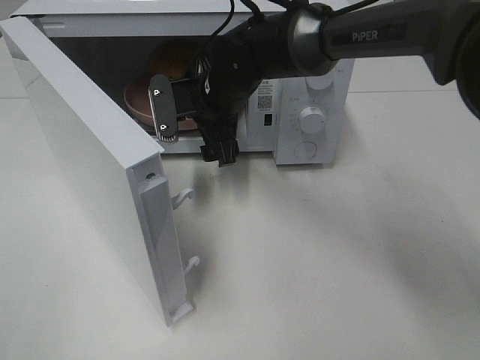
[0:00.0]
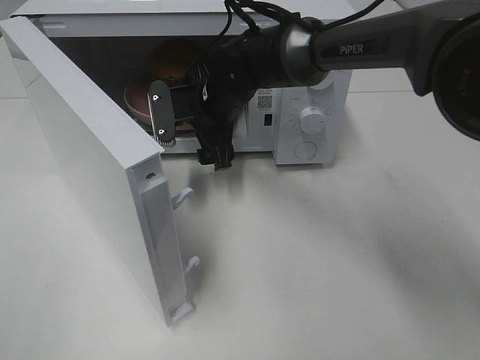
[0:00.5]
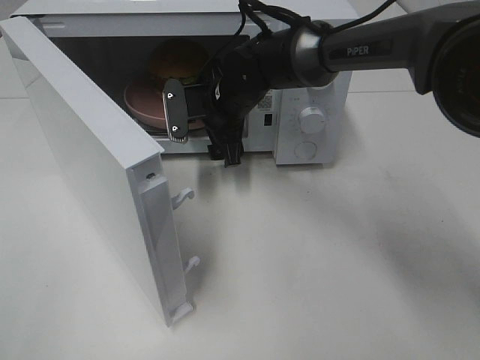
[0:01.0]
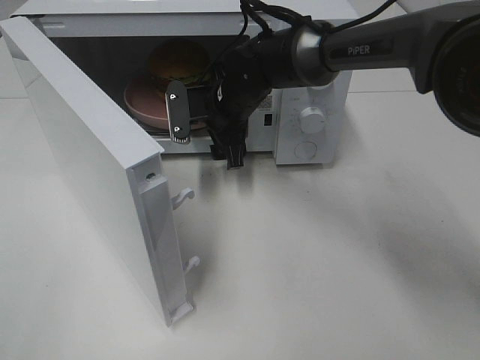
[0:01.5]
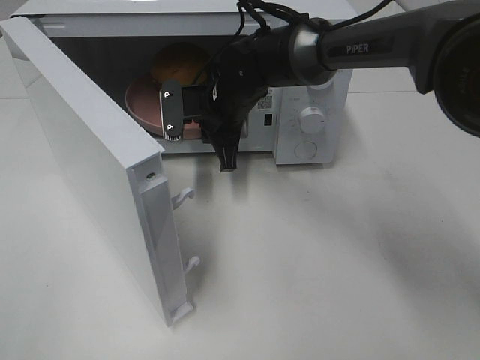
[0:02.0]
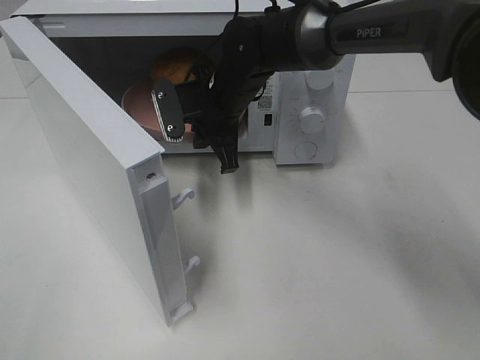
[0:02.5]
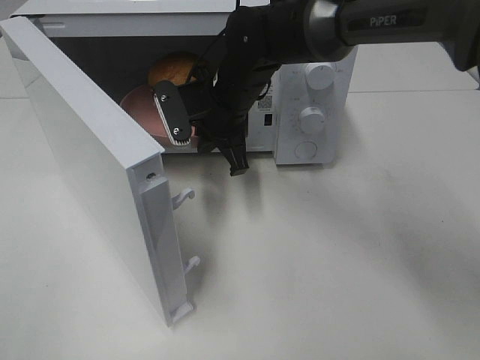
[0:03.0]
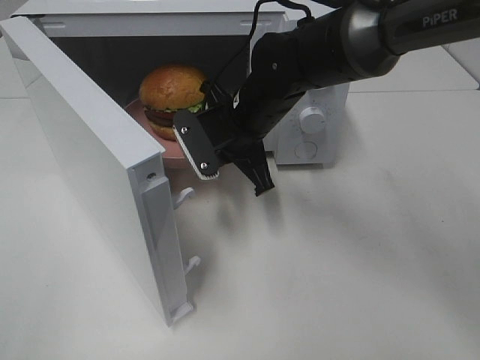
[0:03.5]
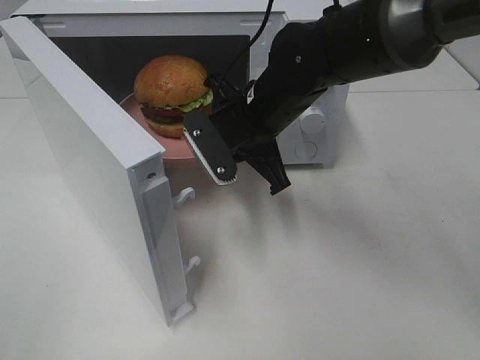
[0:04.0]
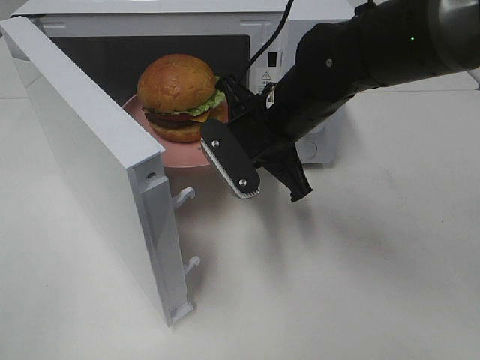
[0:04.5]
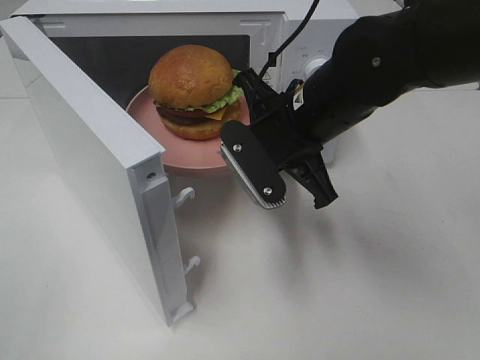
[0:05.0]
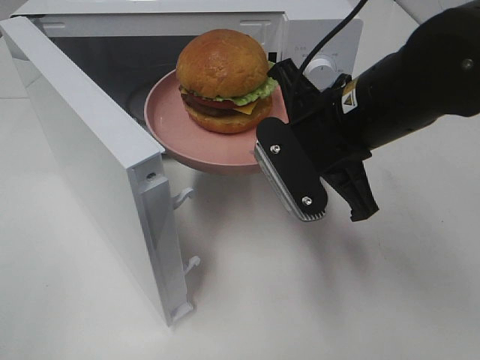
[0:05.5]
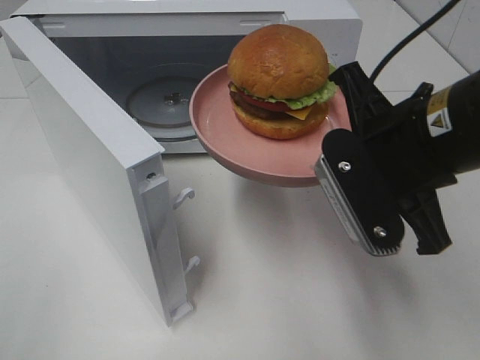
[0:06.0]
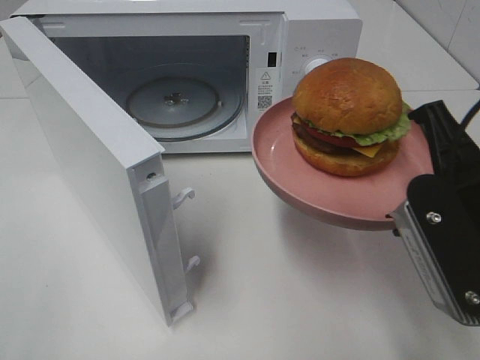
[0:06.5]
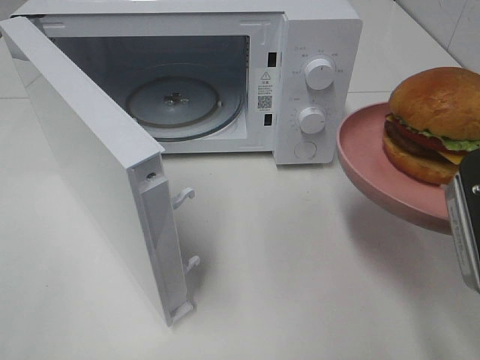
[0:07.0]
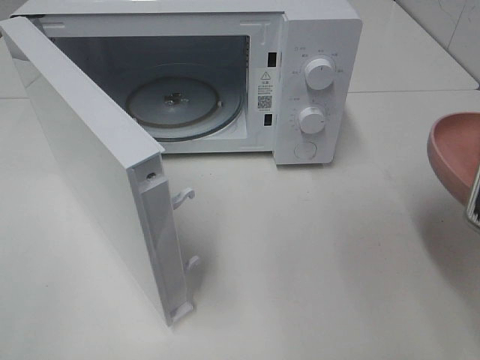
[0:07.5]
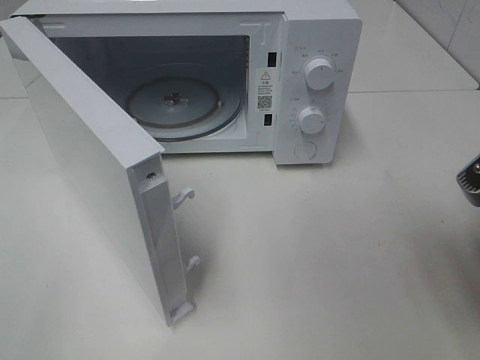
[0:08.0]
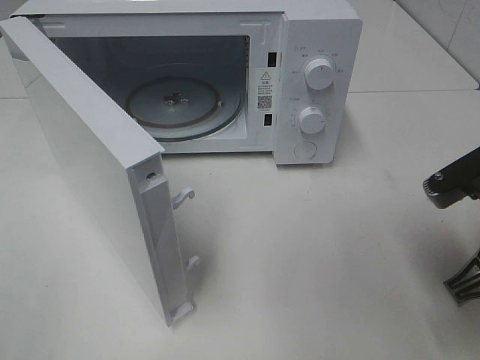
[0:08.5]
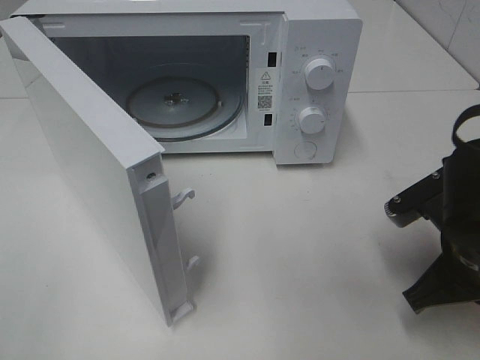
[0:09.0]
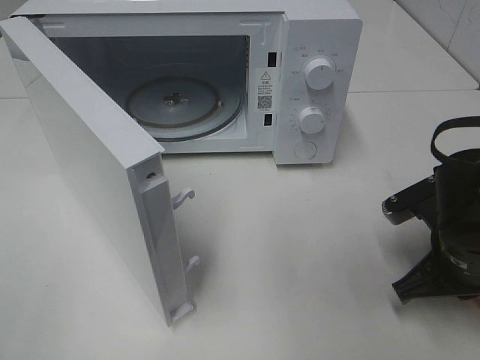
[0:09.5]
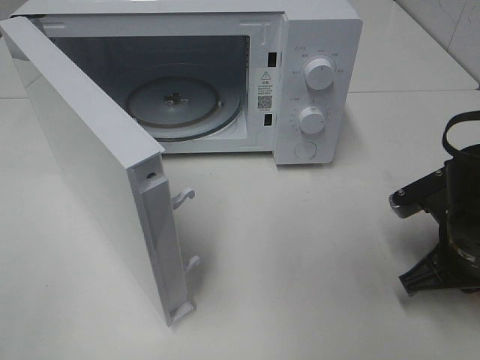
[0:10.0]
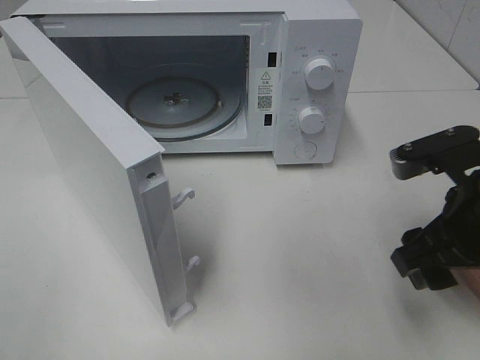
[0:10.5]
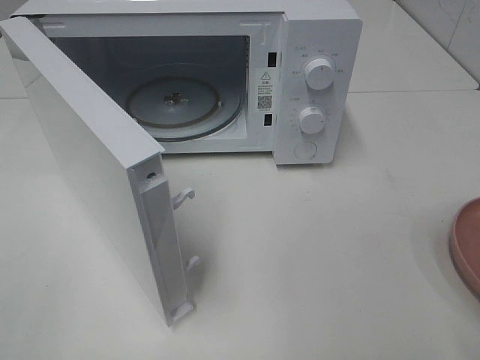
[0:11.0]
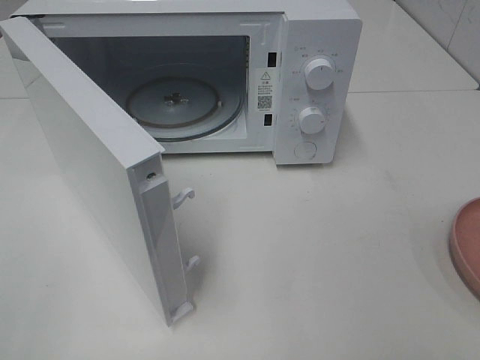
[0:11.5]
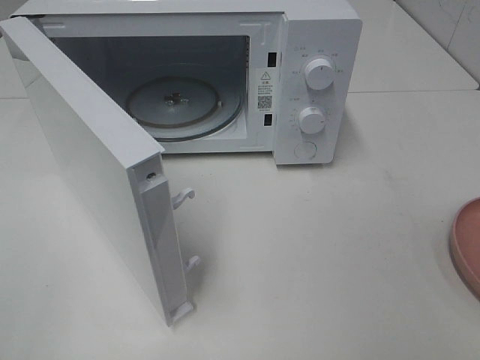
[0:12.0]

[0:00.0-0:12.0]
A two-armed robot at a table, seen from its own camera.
Task of the whole recording: Heat the burger.
Step, 0:00.0 to 0:02.0: Right hand: grab the plate with the hamburger.
Step, 0:02.5 to 0:10.0: Right hand: place the plate on the table.
0:00.0 to 0:02.0: The right gripper closes its fingers.
0:02.0 to 0:04.0: The right gripper shifts about 10 cm backward.
0:04.0 to 0:06.0: The right gripper shifts approximately 20 cm backward, to the right and upward.
0:06.0 to 0:08.0: The right gripper moves to the right and backward, approximately 10 cm.
0:08.0 to 0:10.0: The right gripper is displaced downward and forward by roughly 15 cm.
0:10.0 to 0:12.0: The right gripper heads backward and upward, covering roughly 30 cm, and opens its fingers.

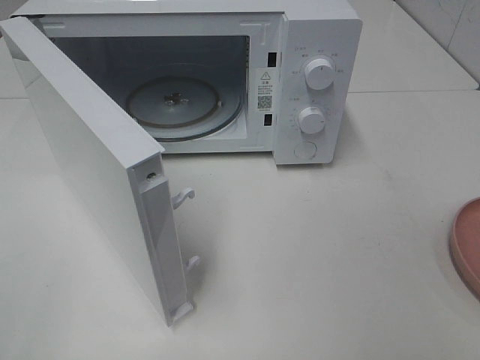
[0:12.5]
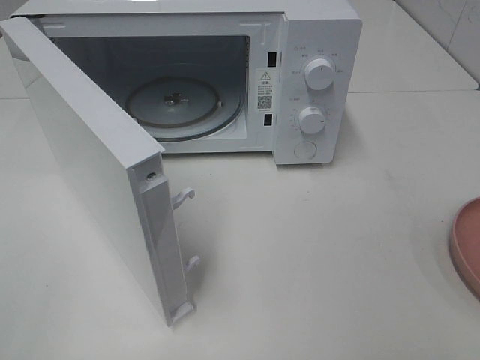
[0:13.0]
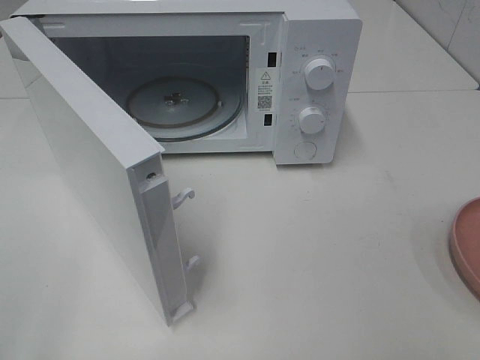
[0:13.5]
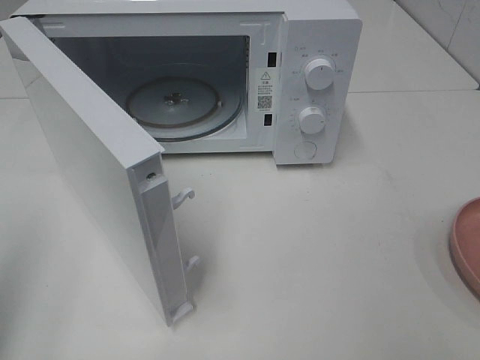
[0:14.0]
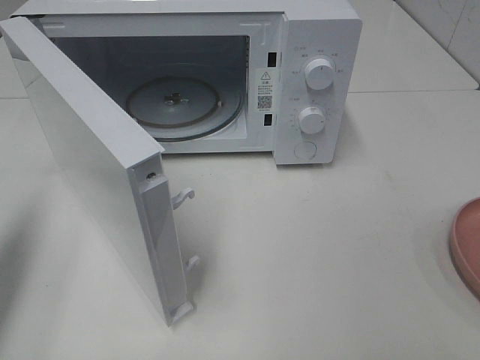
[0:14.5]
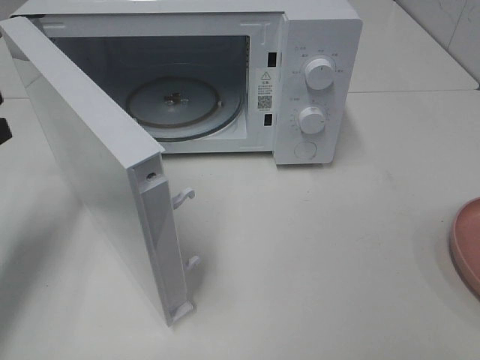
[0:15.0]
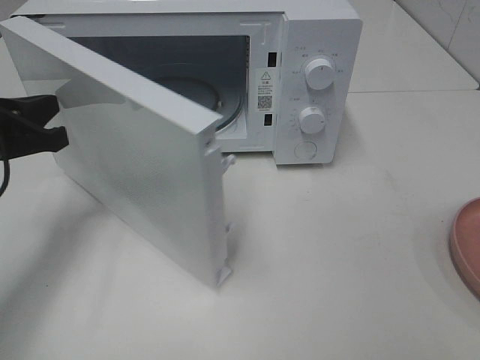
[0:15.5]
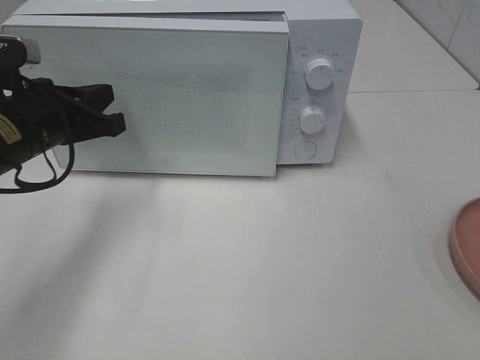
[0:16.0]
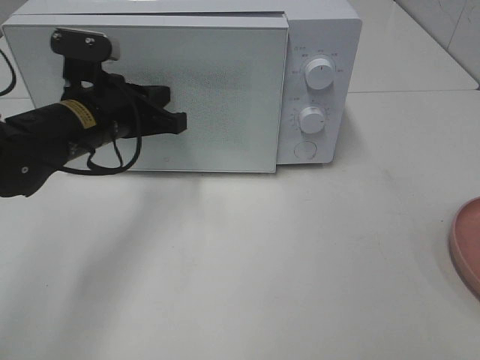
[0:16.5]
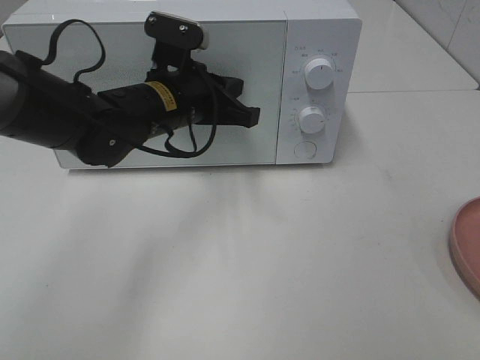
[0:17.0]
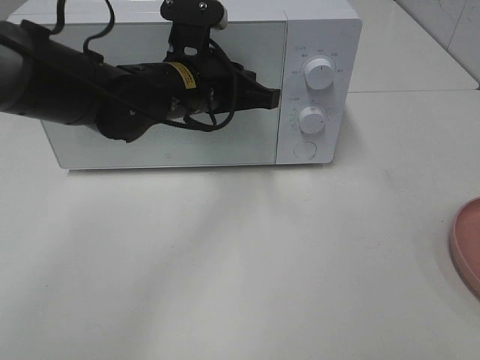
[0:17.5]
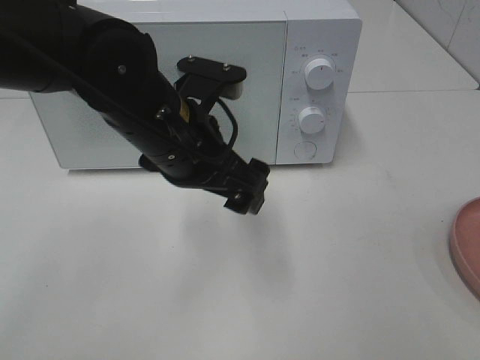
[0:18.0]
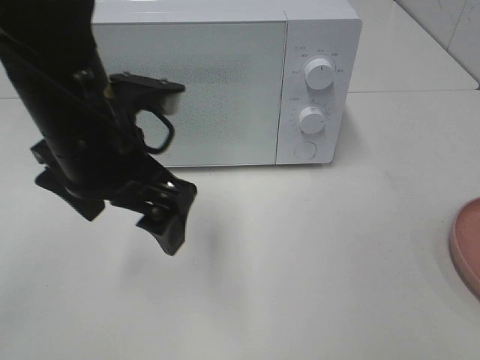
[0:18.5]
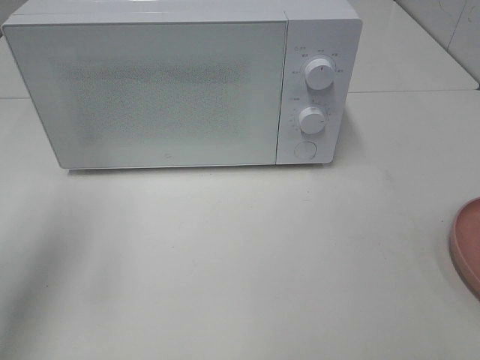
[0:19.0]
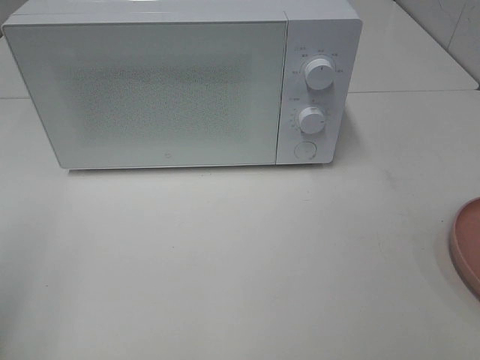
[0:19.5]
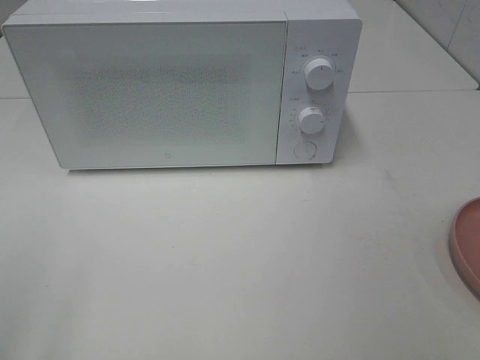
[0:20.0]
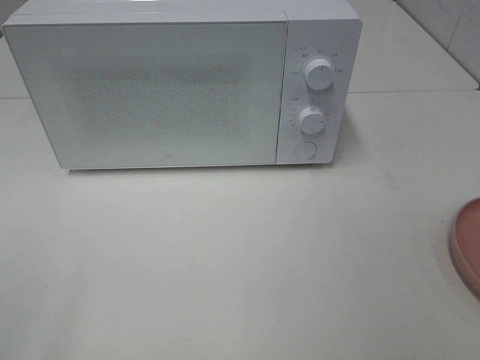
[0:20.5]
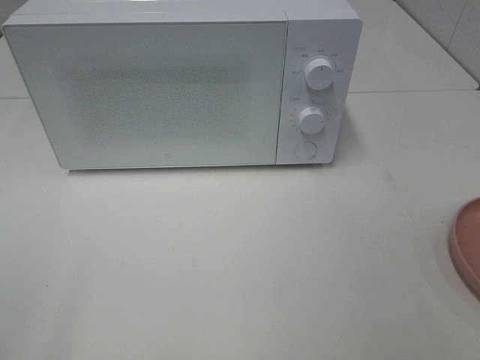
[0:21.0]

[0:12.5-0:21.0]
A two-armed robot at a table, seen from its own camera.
Task of the whole recording: Heat the burger.
Step, 0:12.5 to 0:17.5: Left hand: close the microwave door.
0:12.5 to 0:14.5: The left gripper goes roughly 20 cm forward, and closes.
0:14.5 to 0:16.5: The left gripper moves to the right, forward and downward, about 25 cm.
0:16.5 to 0:19.0: The left gripper travels upward, to the left and backward by some 20 cm, and opens its fingers.
0:19.0 to 0:21.0: The left gripper goes some 20 cm backward.

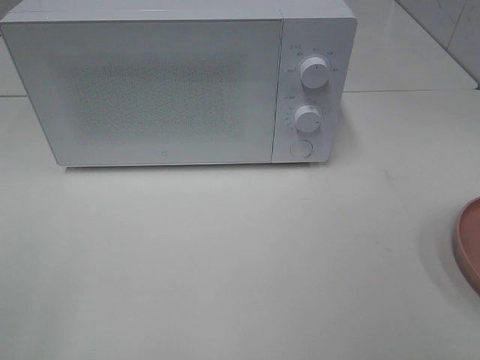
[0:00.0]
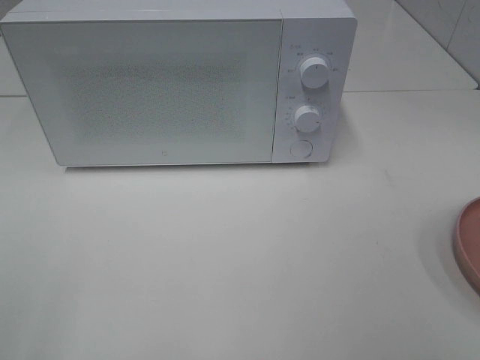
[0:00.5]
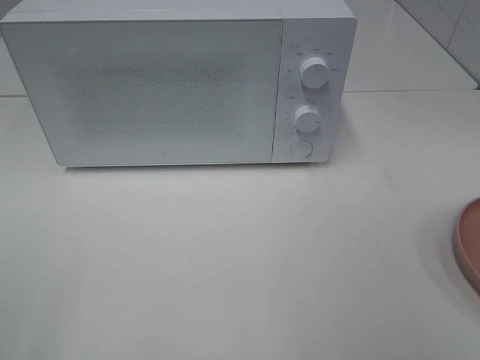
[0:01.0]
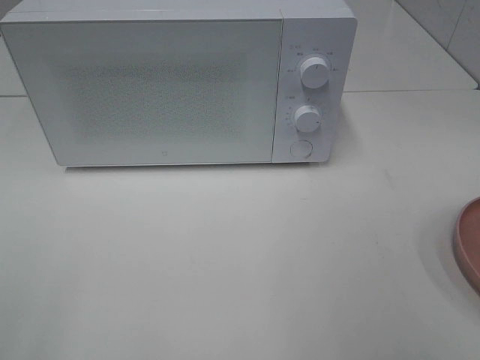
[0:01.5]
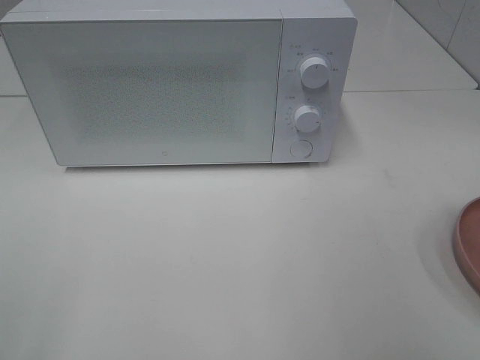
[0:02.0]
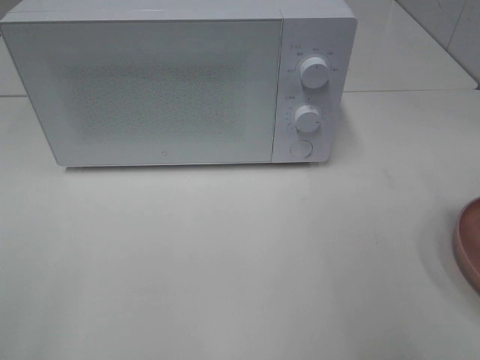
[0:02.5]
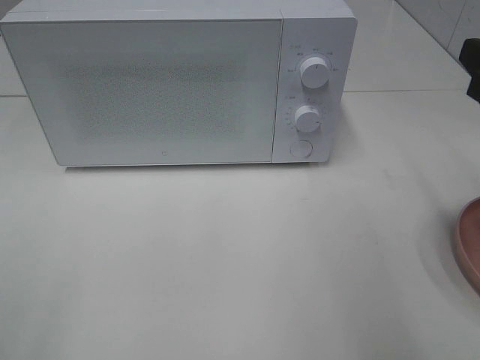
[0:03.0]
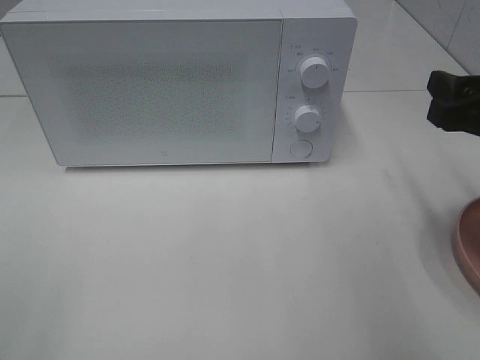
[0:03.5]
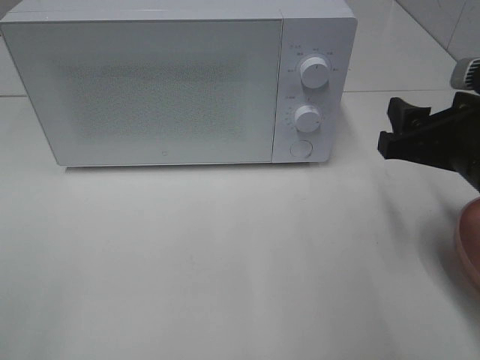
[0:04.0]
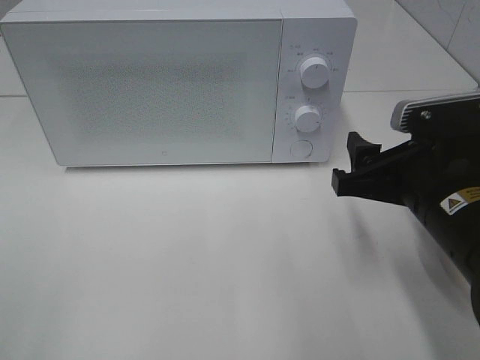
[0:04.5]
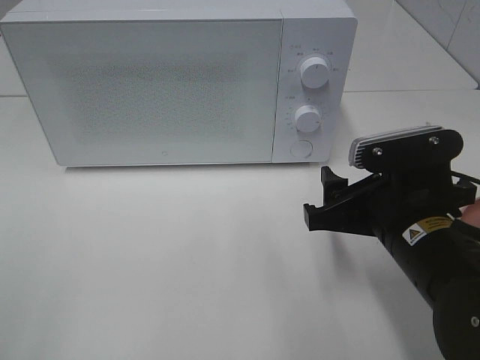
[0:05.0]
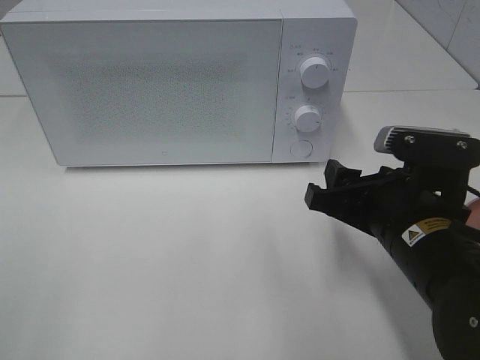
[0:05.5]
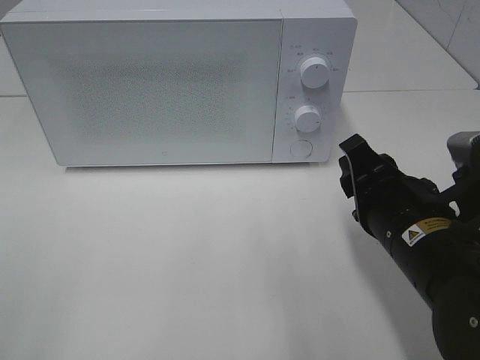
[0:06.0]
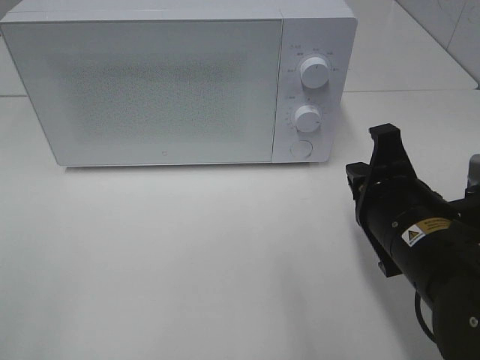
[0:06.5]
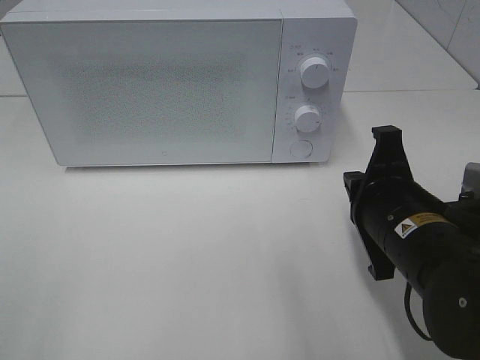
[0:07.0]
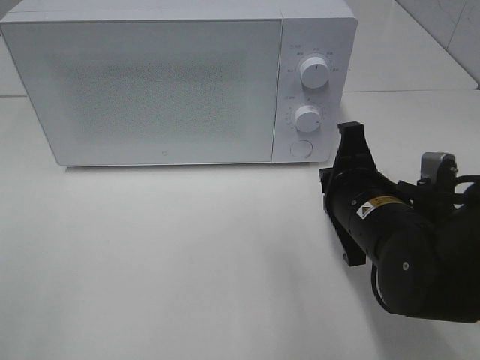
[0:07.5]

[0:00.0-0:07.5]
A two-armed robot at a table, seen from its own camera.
Task of the whole recording: Heat the burger.
0:02.0 to 0:04.0: The right gripper moves forward, downward and to the left, roughly 15 cm.
0:04.0 to 0:05.5: The right gripper shifts some 10 cm to the left and downward.
0:05.5 to 0:07.5: The right gripper closes.
